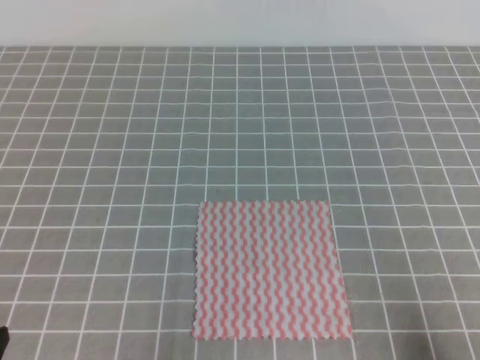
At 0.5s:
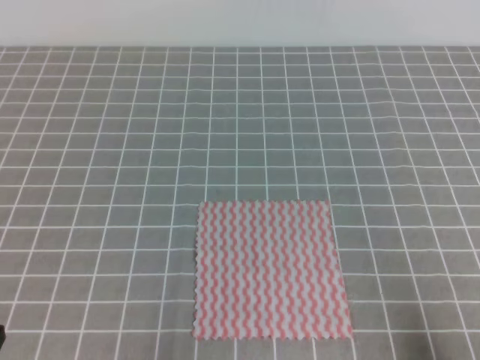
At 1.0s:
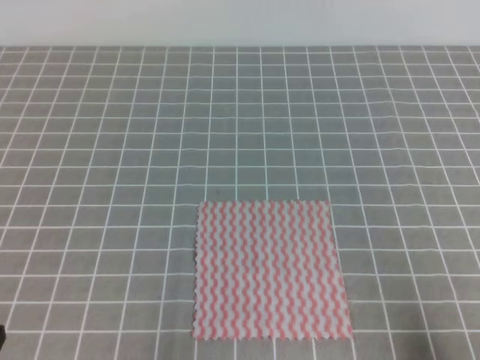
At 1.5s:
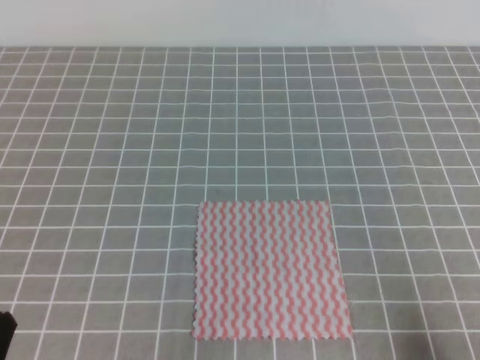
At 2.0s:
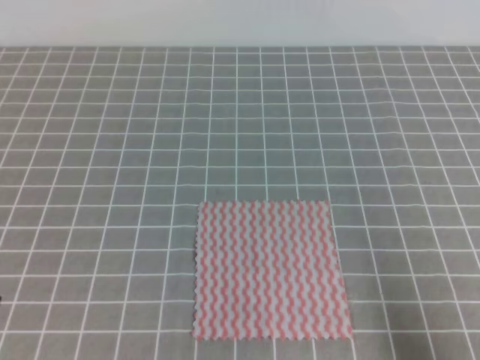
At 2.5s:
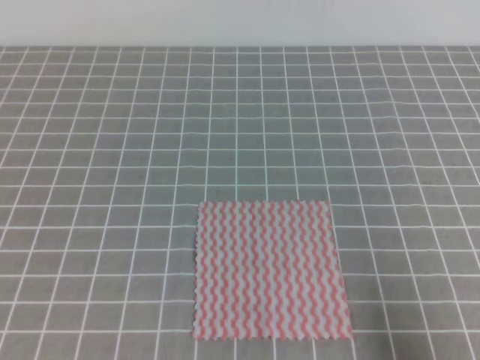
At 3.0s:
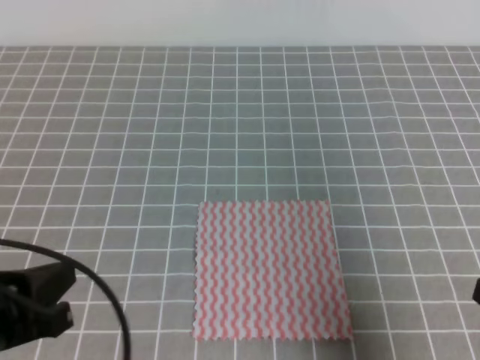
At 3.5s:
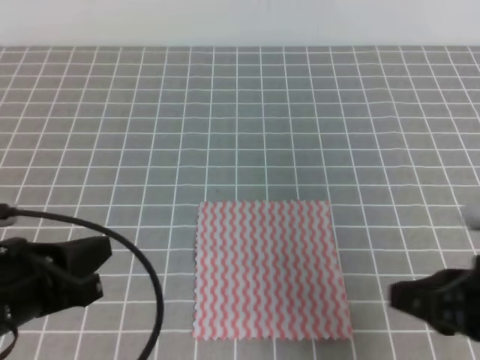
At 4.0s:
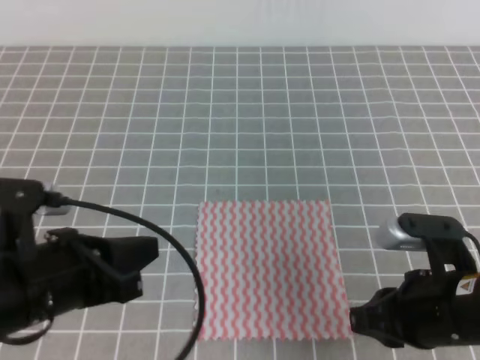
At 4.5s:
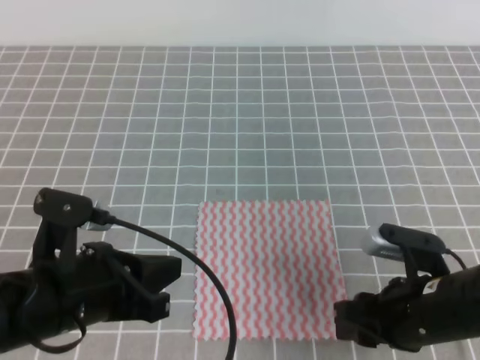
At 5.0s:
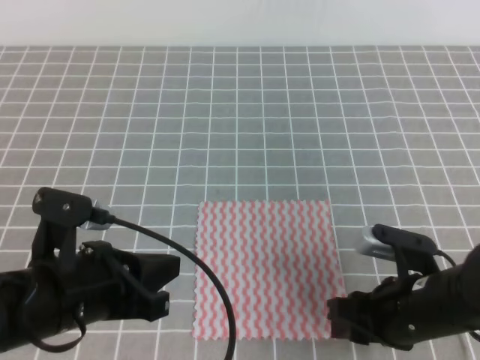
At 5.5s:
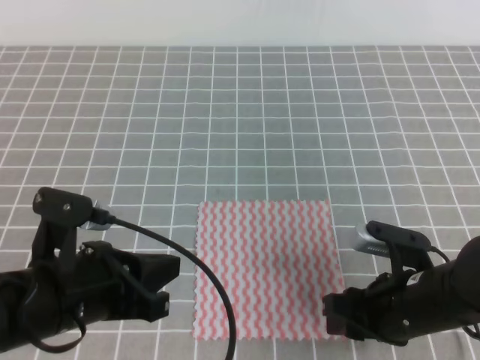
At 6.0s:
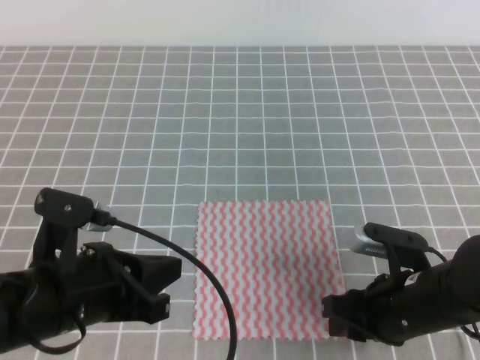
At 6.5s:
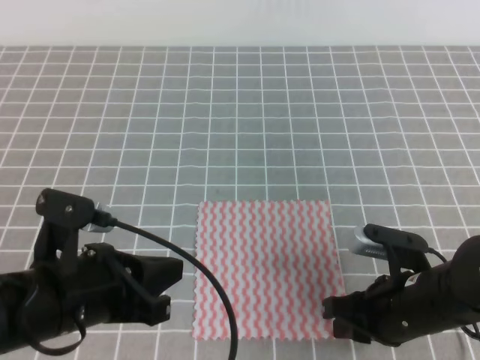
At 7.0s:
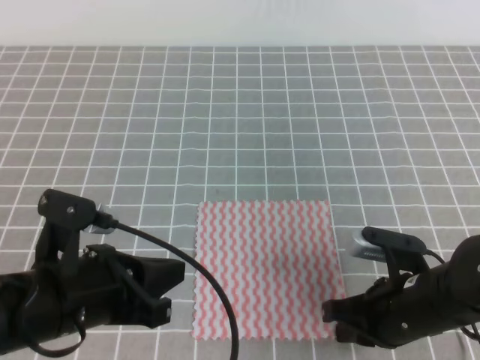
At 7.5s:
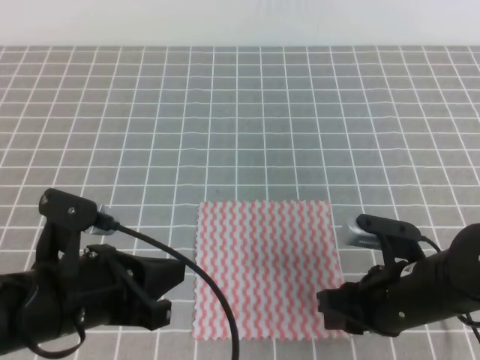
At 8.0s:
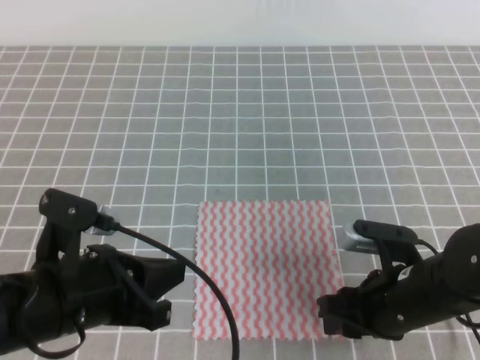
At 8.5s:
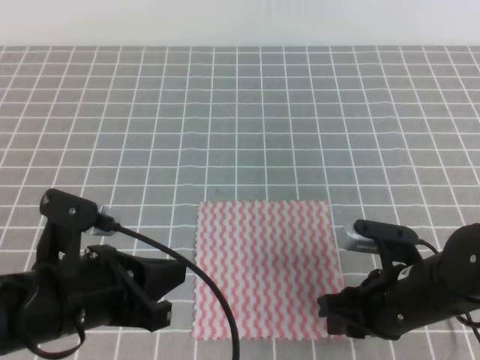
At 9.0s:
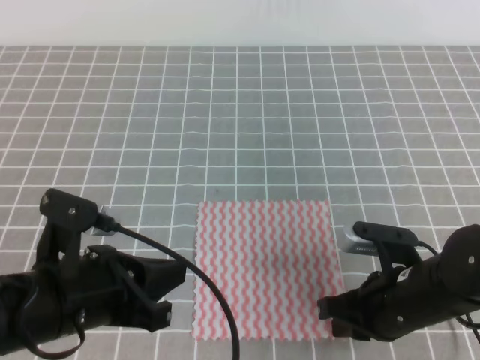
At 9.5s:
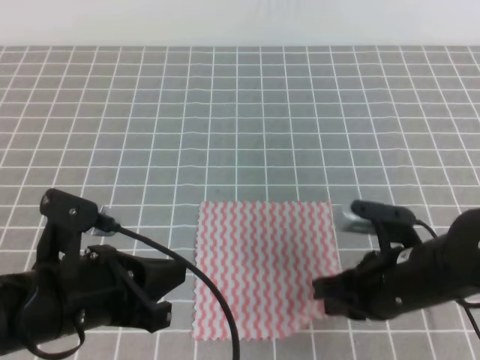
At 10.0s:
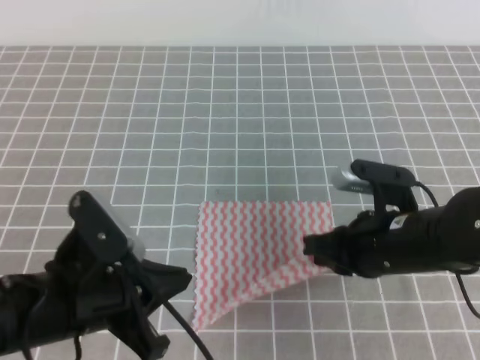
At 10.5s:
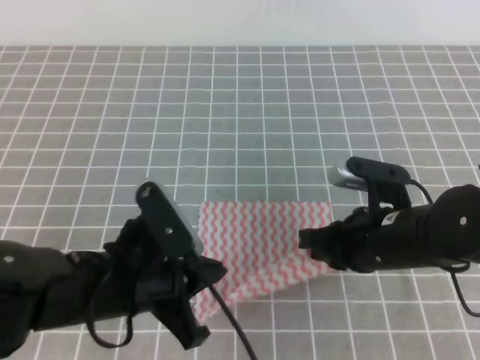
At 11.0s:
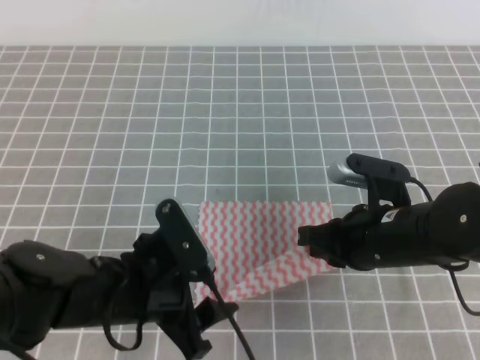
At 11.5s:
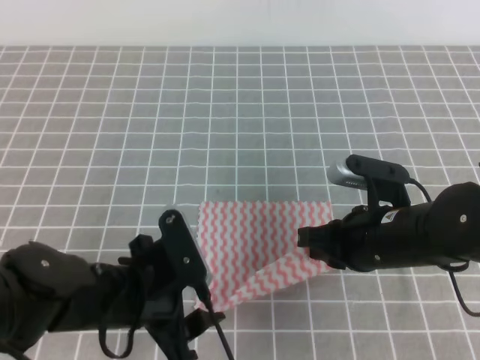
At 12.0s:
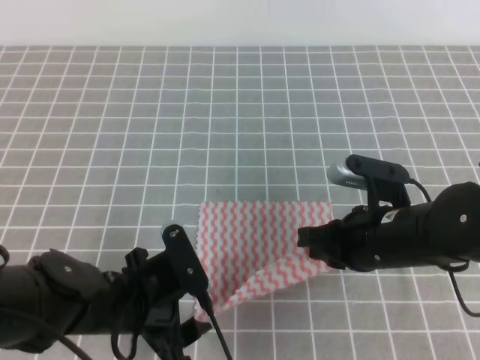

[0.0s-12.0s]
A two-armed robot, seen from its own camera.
2.0s to 4.0s: The left gripper goes approximately 15 cm forward and to the right; the right gripper is displaced to the left and forward by roughly 15 cm.
4.0s to 6.0s: The right gripper moves downward, some 5 cm, and opens up.
6.0s to 8.0s: The right gripper closes, then reopens.
8.0s to 10.0s: The right gripper changes place by roughly 5 cm, and closes.
10.0s to 12.0s: The left gripper is displaced downward by about 5 cm, and opens its fingers.

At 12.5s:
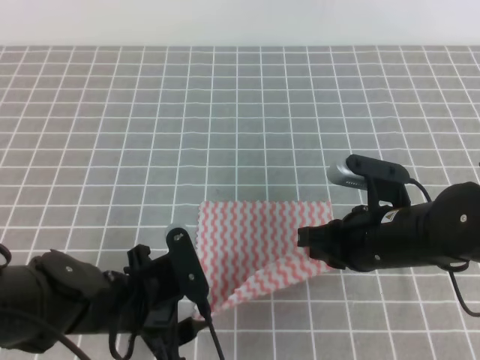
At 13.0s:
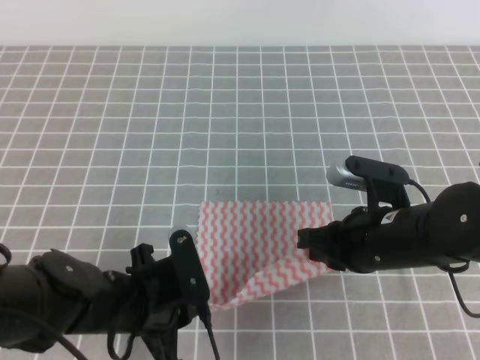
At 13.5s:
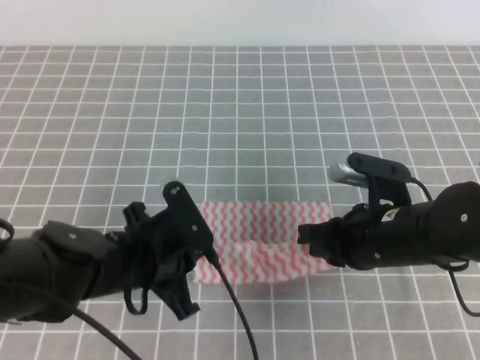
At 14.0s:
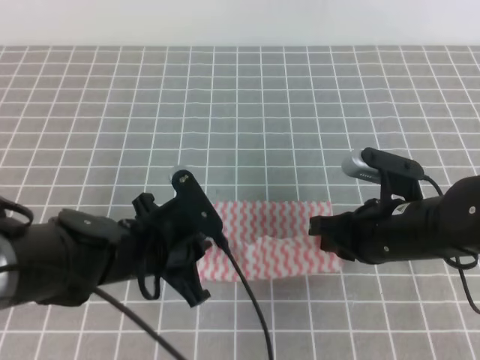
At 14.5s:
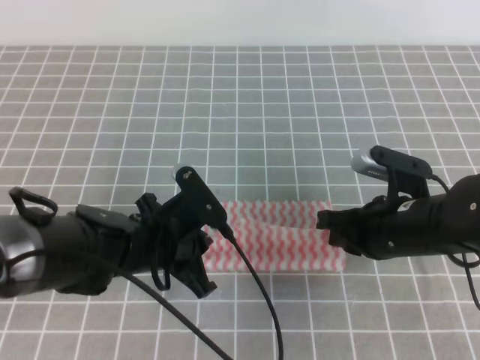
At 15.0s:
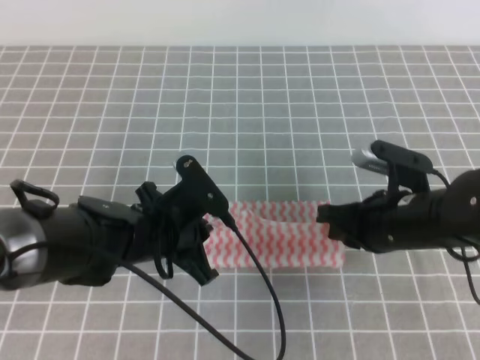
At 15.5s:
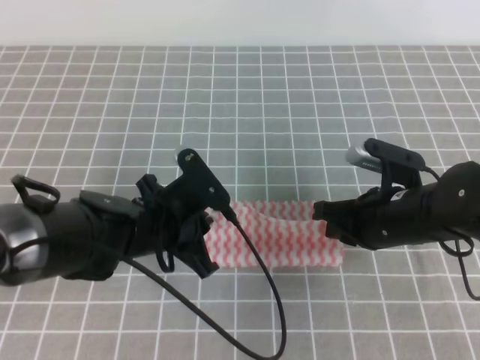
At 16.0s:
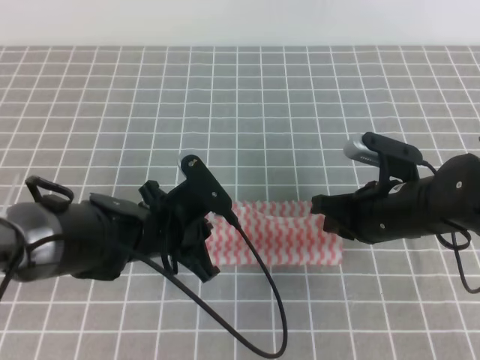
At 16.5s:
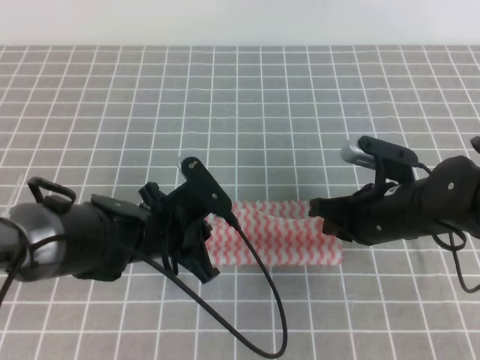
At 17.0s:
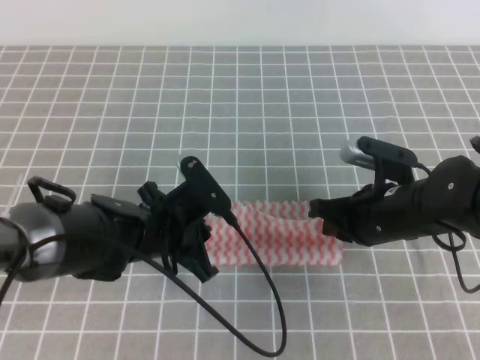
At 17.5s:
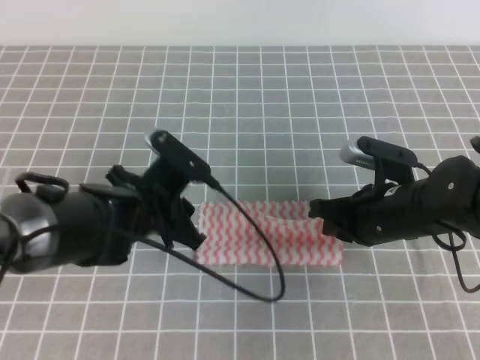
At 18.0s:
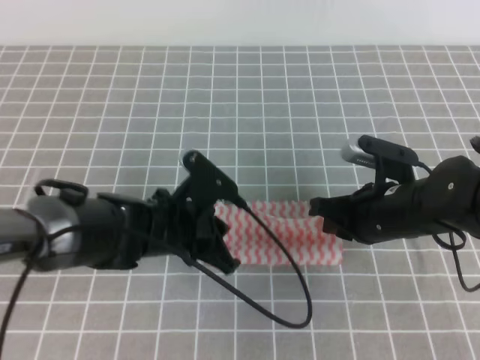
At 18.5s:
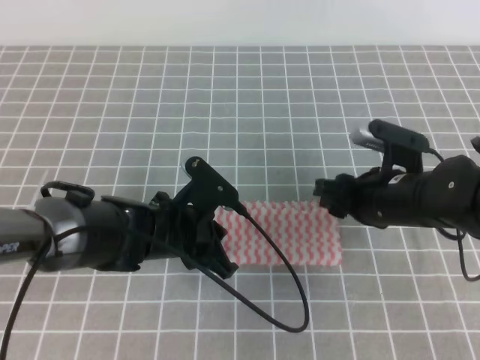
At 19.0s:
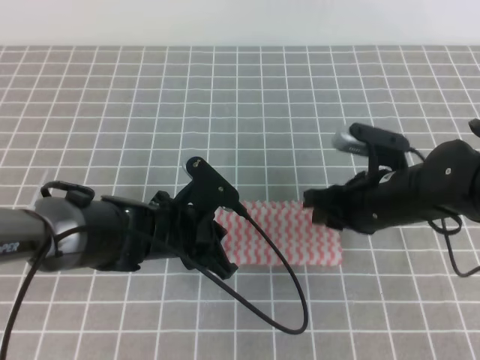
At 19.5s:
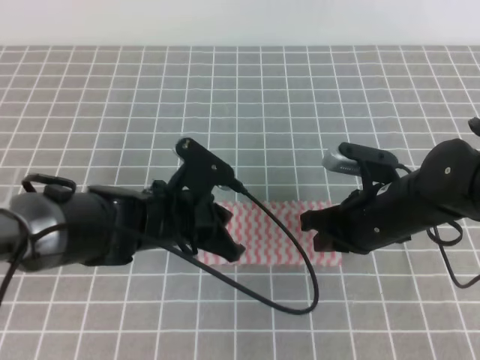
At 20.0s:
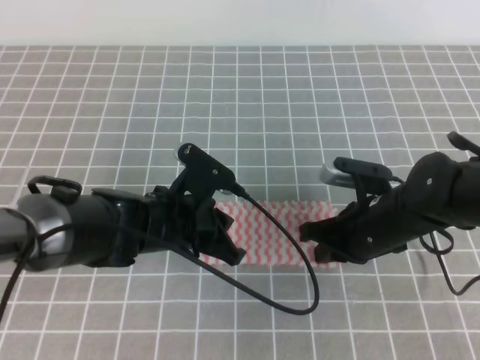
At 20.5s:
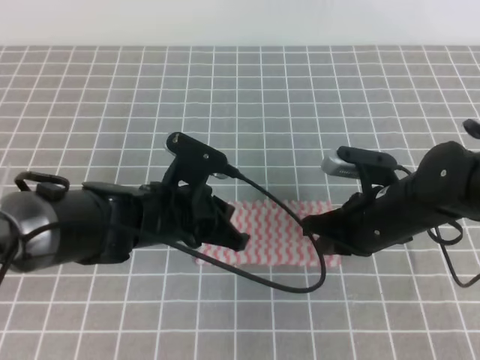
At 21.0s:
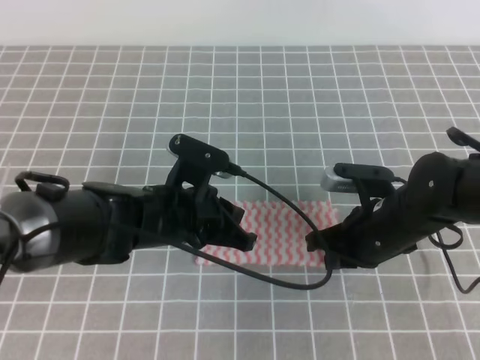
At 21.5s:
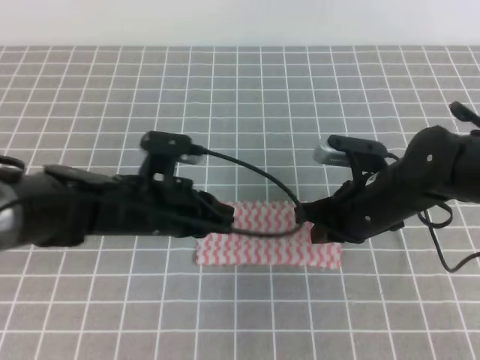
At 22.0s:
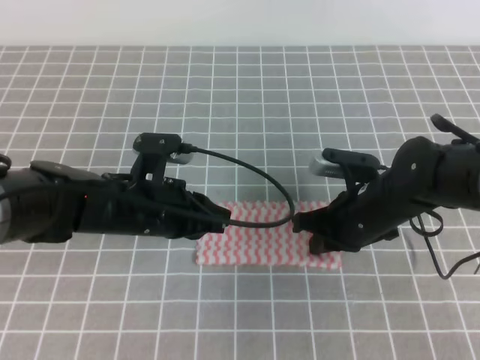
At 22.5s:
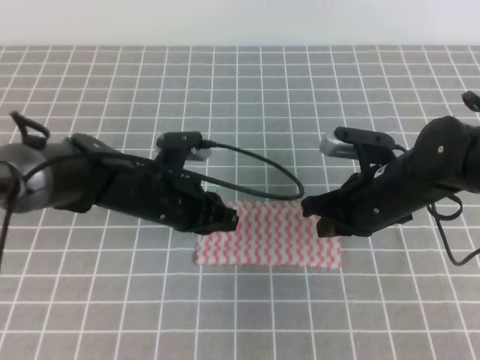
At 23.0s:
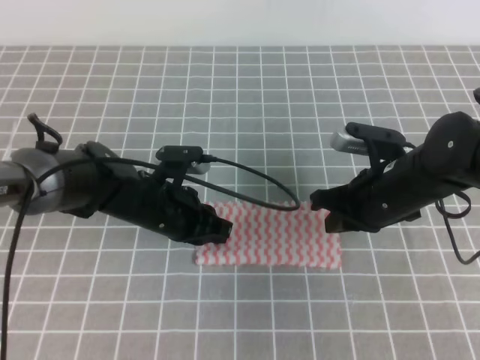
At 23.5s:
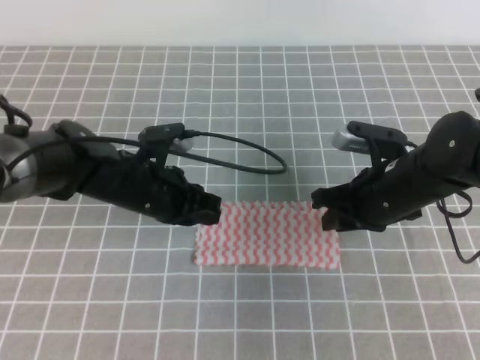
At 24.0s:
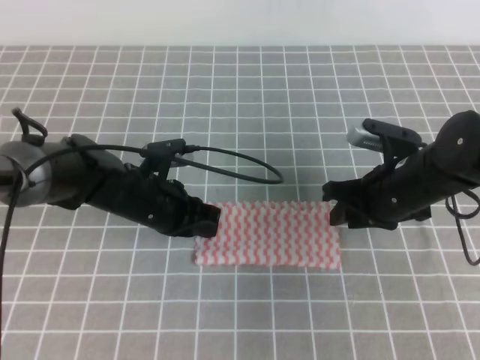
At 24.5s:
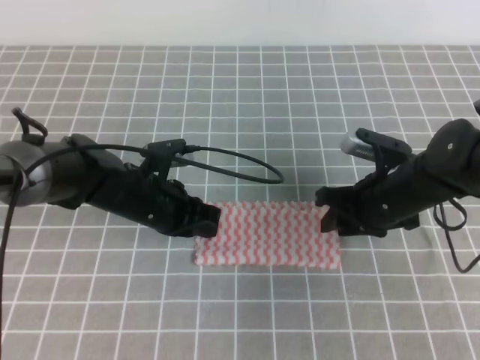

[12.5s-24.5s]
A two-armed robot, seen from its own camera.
12.5s to 14.5s: The left gripper travels forward by some 5 cm, and closes its fingers.
14.5s to 16.5s: The grippers stay close to where they were, moving slightly.
16.5s to 18.5s: The left gripper opens and closes again. Meanwhile the right gripper opens its fingers.
18.5s to 20.5s: The right gripper closes.
22.5s to 24.5s: The right gripper opens up.

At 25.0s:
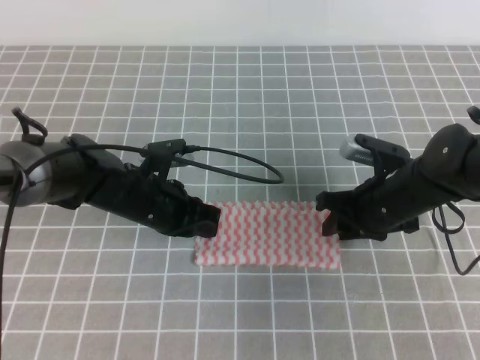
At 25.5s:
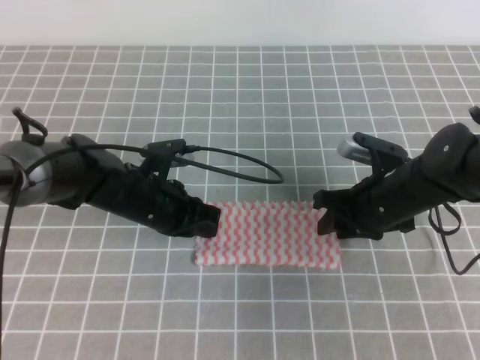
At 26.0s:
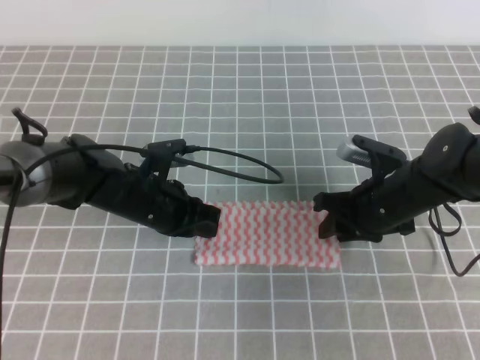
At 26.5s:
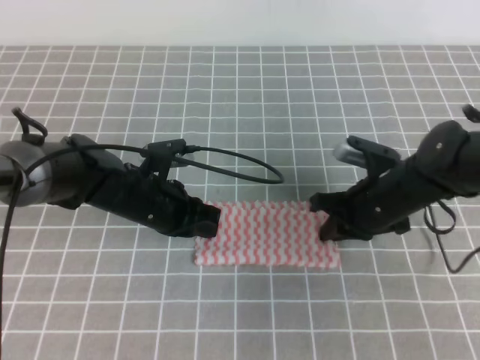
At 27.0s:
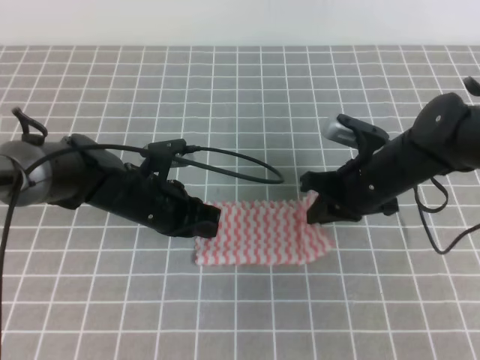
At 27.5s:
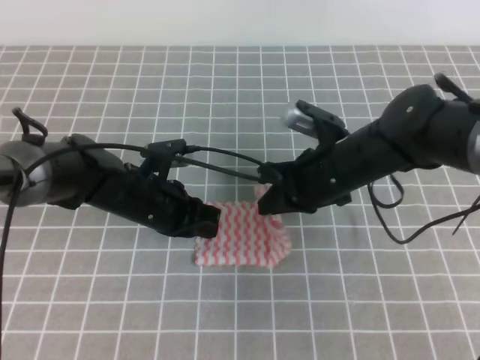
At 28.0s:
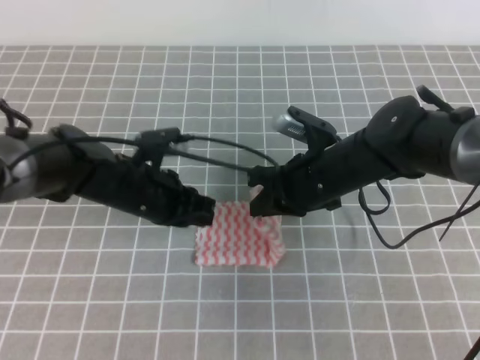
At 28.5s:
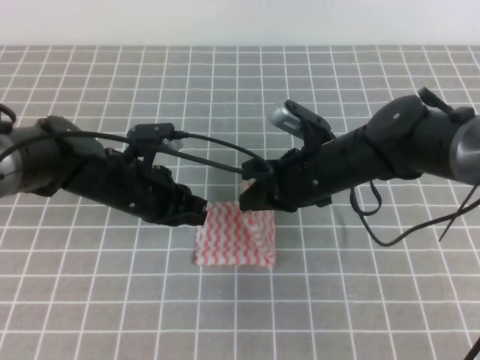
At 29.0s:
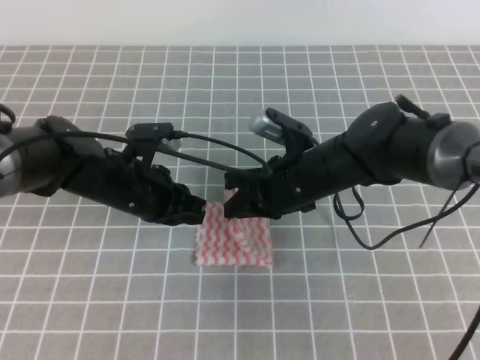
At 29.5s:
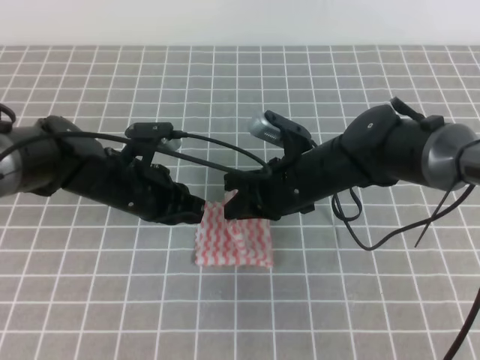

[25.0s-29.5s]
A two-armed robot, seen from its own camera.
25.0s to 27.0s: The right gripper closes.
27.0s to 29.5s: The right gripper goes approximately 10 cm to the left.
